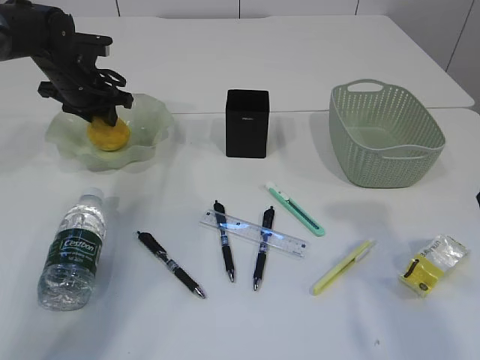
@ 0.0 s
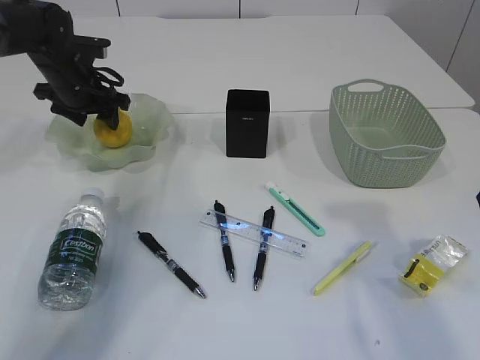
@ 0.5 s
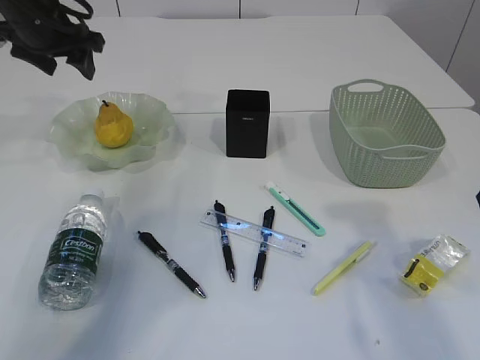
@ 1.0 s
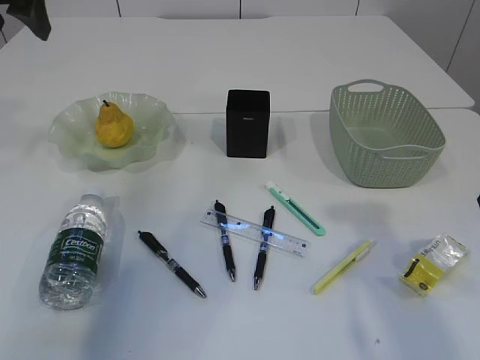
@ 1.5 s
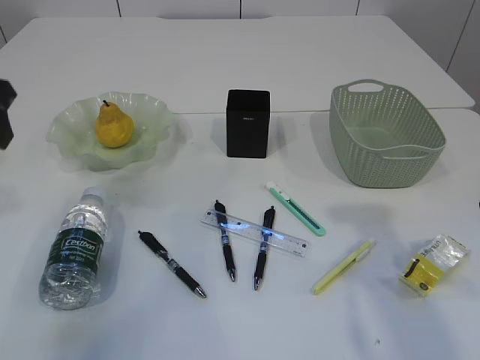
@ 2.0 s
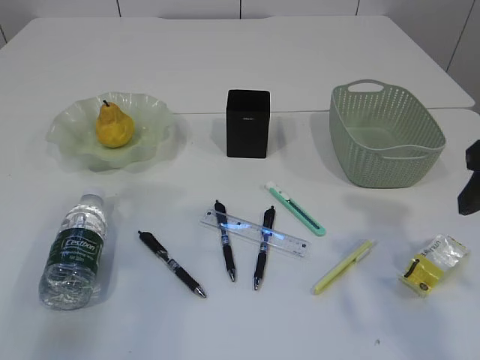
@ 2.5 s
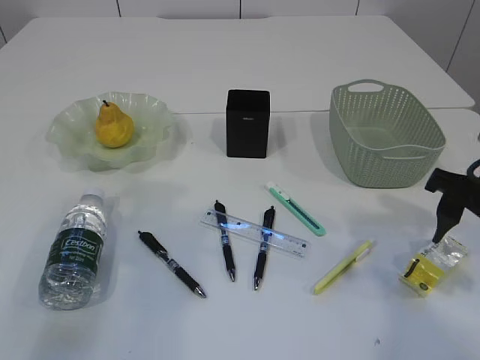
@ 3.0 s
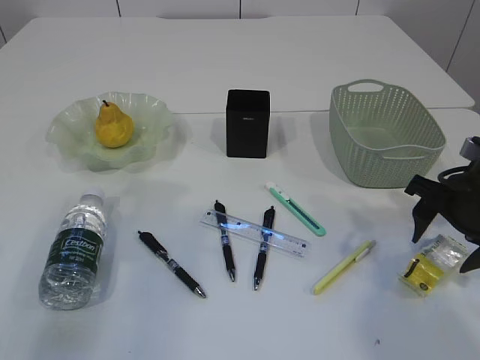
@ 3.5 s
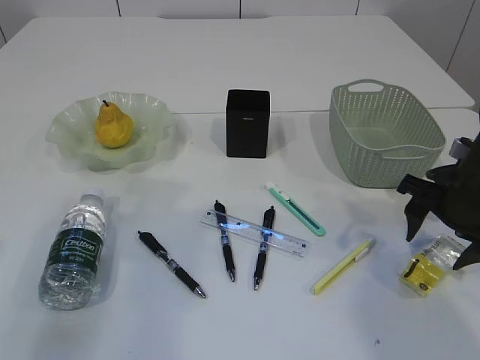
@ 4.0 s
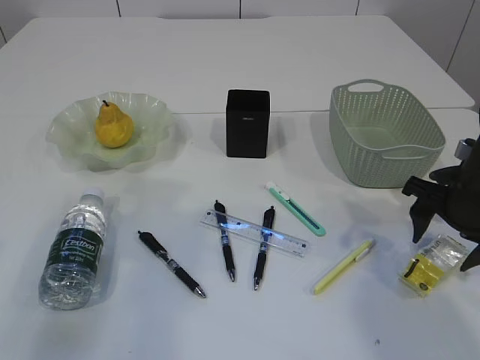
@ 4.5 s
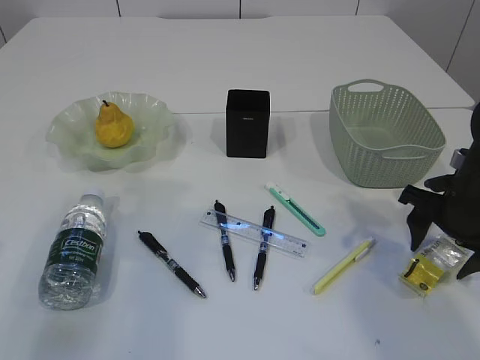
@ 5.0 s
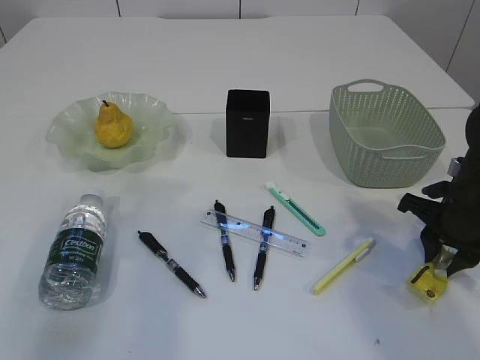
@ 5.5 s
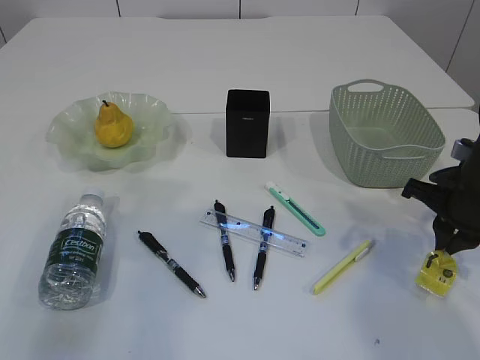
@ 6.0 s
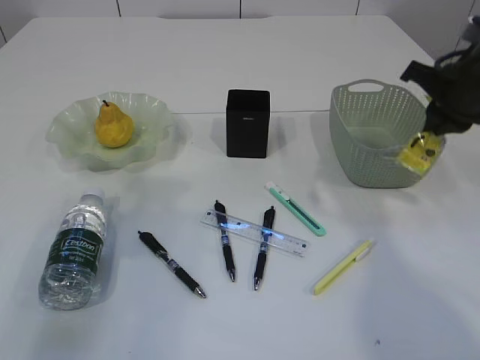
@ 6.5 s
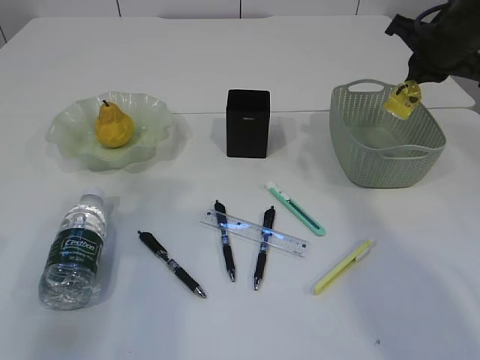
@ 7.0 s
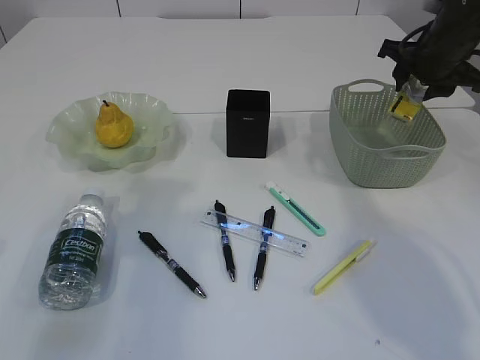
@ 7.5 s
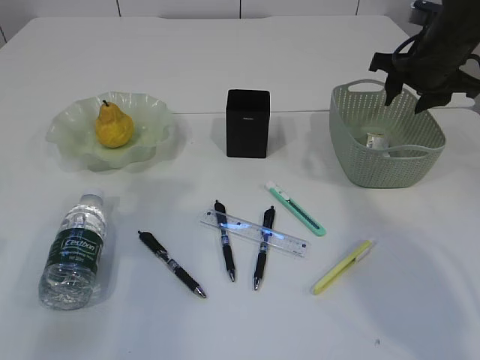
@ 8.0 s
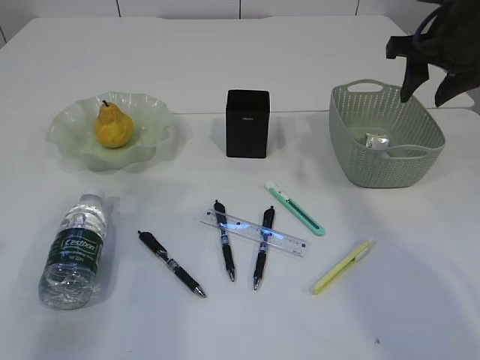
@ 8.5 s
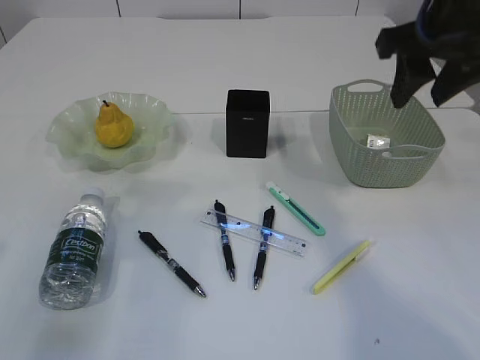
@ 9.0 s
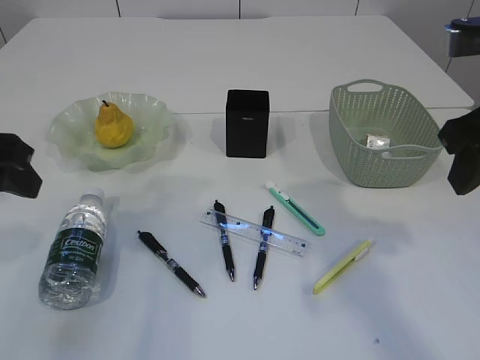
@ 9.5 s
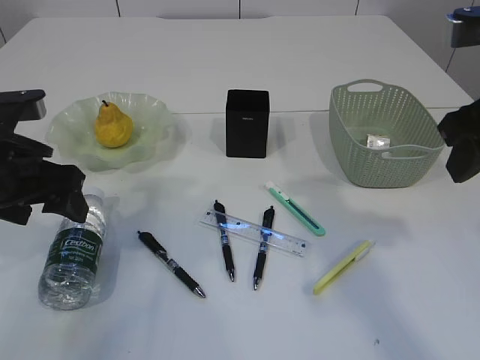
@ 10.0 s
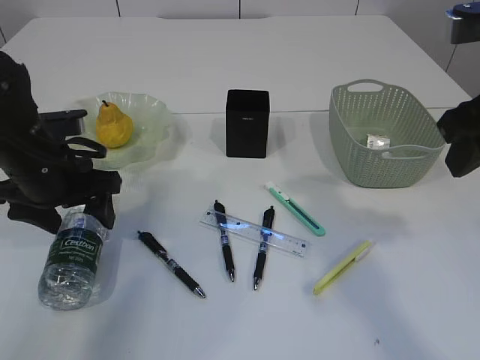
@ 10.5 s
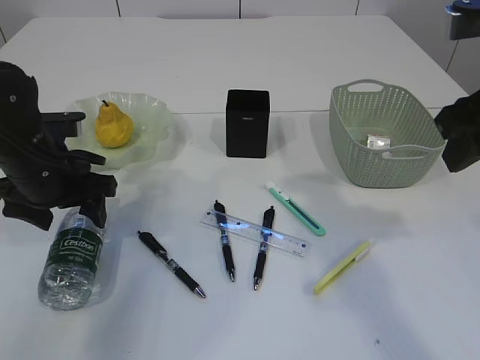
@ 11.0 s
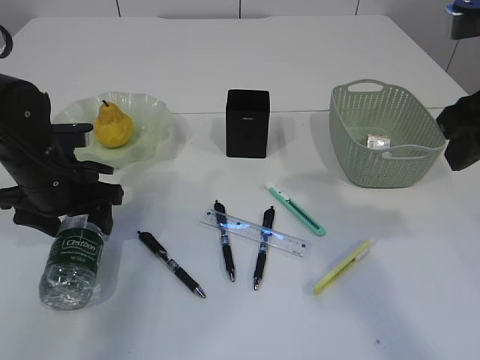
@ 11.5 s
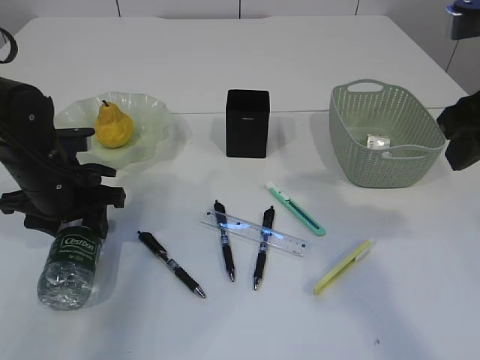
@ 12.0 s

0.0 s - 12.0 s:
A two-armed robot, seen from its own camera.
Step, 1.5 s - 6.0 s: Pick up the waste paper.
Step, 6.5 s - 7.5 s: Place the waste paper in the basket.
0.0 s - 2.0 s: The left gripper travels backward and upward by roughly 25 cm, and opens up.
2.0 s - 4.0 s: The right gripper travels downward and forward by some 20 cm, while the left gripper goes about 10 cm backward.
4.0 s - 6.0 s: The right gripper closes up.
6.0 s - 8.0 s: The right gripper moves forward and upward, about 15 cm, and opens up.
8.0 s - 10.0 s: The right gripper travels backward by some 20 cm. The left gripper heads downward, covering roughly 5 cm.
10.0 s - 12.0 s: The left gripper travels downward and forward by some 10 cm.

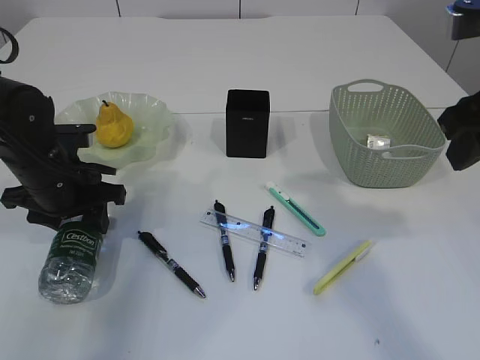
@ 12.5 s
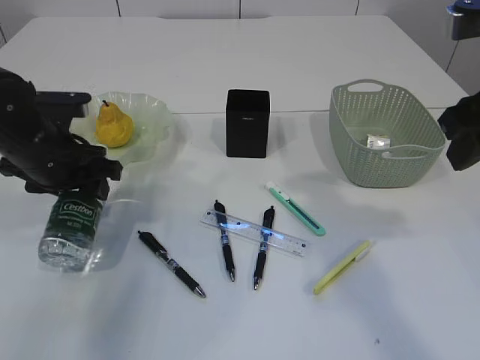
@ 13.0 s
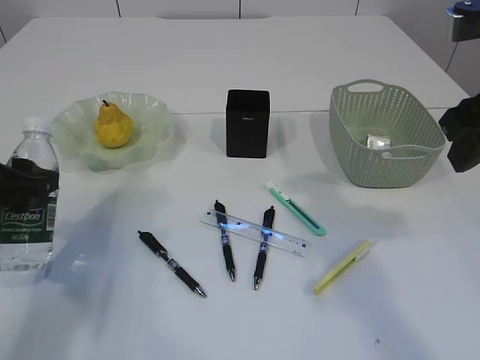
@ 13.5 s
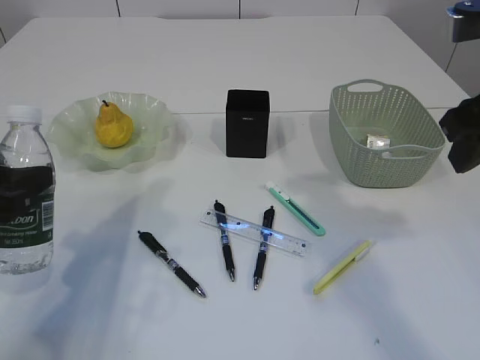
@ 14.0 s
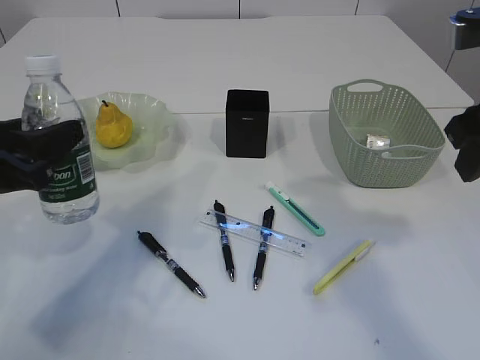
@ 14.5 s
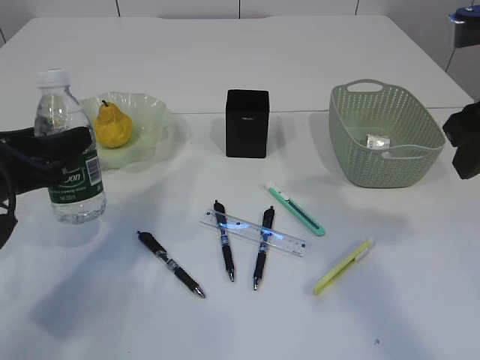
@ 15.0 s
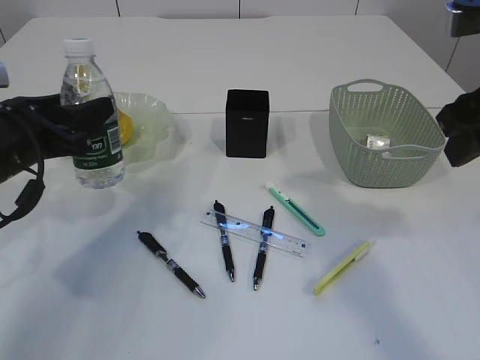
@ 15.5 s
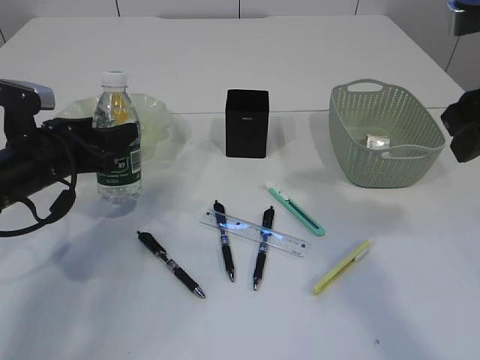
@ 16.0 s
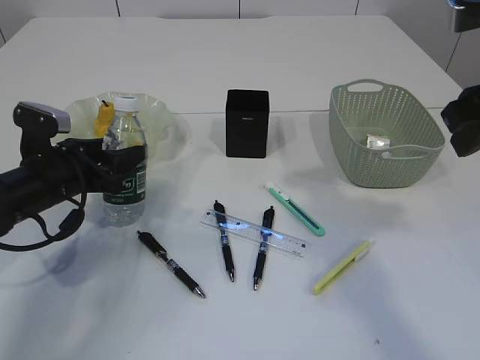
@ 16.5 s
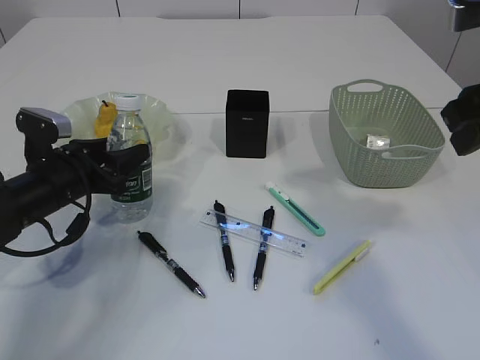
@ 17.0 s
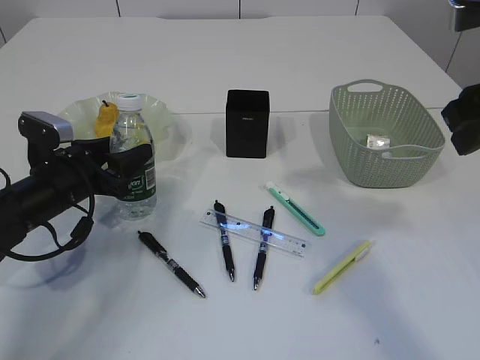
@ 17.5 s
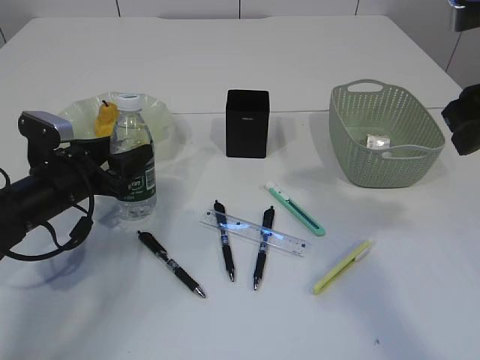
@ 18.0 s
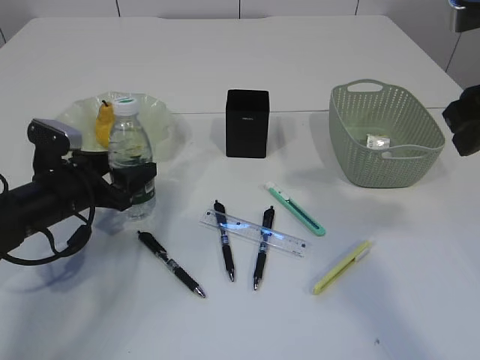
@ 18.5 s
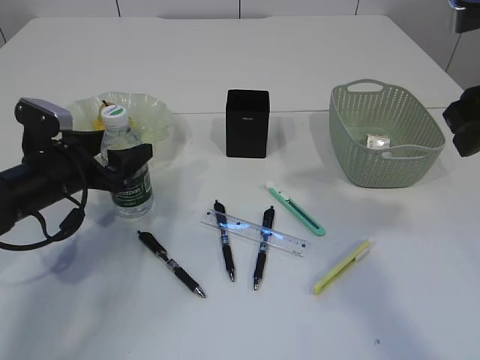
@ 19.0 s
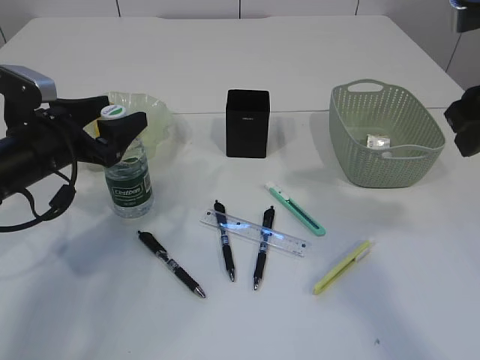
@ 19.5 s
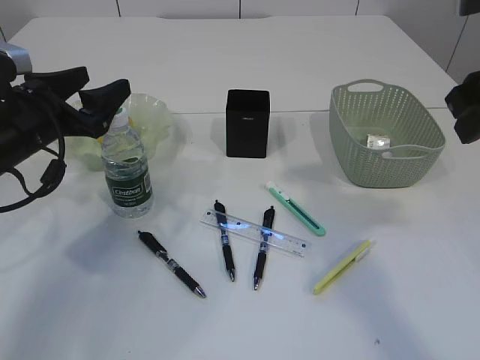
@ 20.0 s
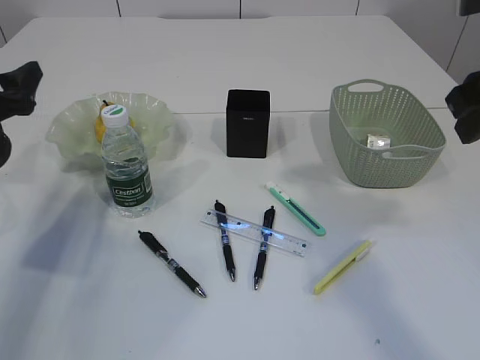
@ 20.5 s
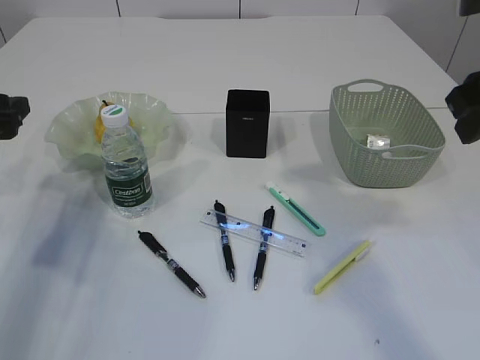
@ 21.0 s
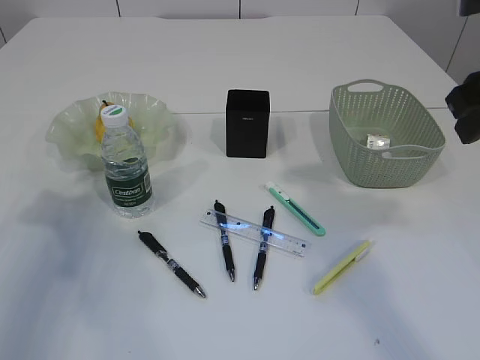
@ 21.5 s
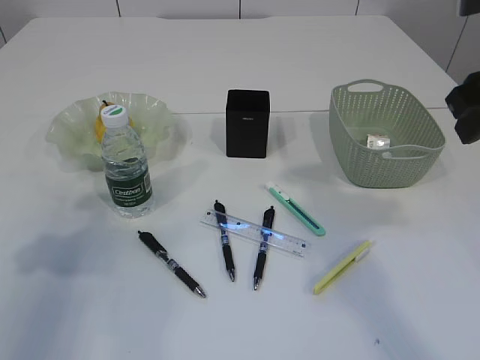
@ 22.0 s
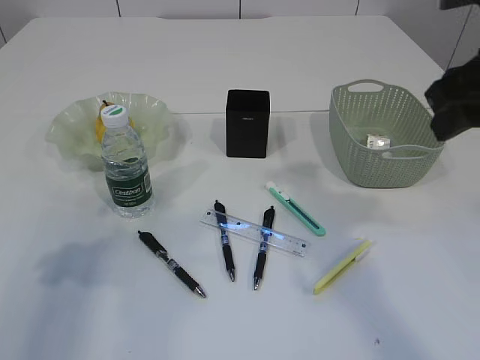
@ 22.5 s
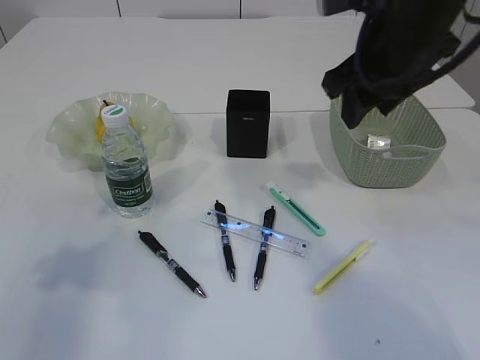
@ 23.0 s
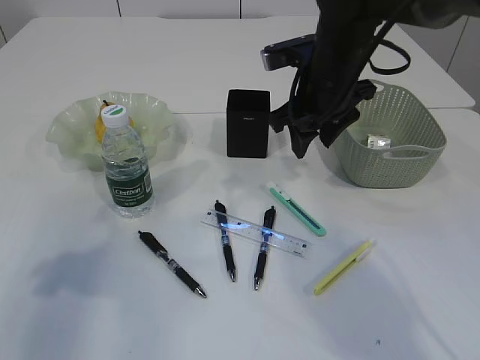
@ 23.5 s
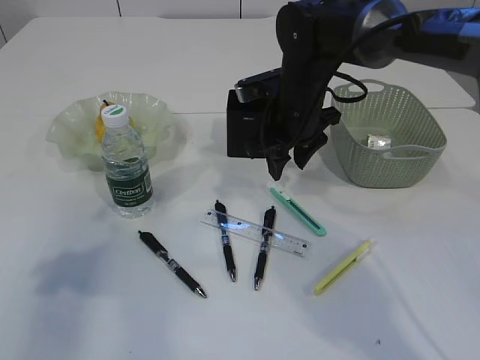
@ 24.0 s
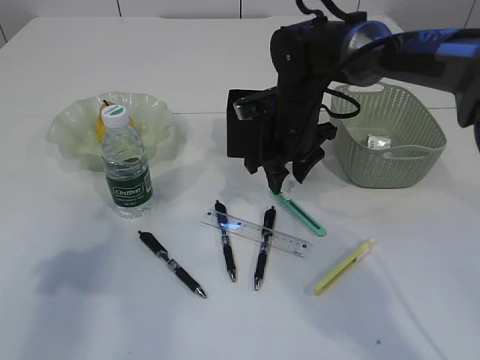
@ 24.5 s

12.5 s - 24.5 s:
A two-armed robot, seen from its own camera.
Step, 13.5 s - 20.5 s: Place the bottle.
12.5 s - 14.5 s: The left gripper travels backward and upward by some 10 cm.
14.5 s - 16.5 s: The left gripper moves forward and downward, about 15 cm.
16.5 s - 18.5 s: The grippers move only a little.
18.5 s - 20.5 s: The left gripper heads upward and to the left, covering approximately 15 cm.
20.5 s - 22.5 s: The left gripper shifts about 15 cm backward and upward.
22.5 s - 24.5 s: The right gripper shifts roughly 30 cm forward, downward and to the left.

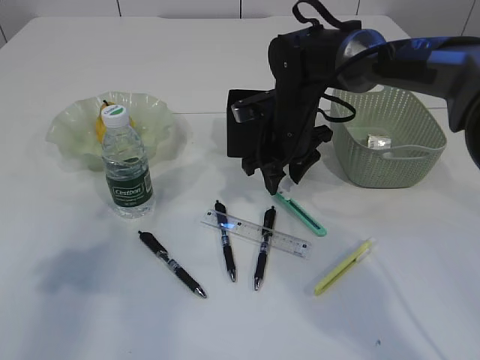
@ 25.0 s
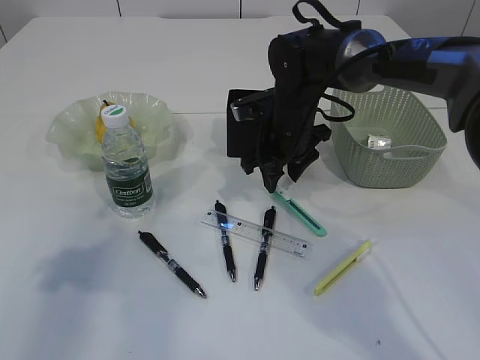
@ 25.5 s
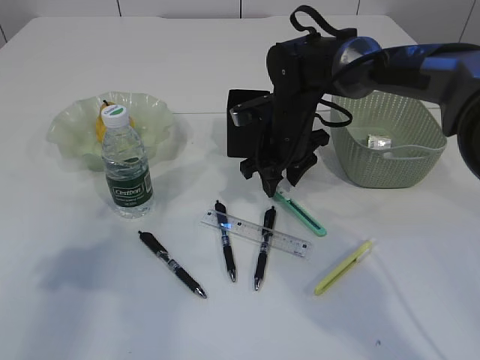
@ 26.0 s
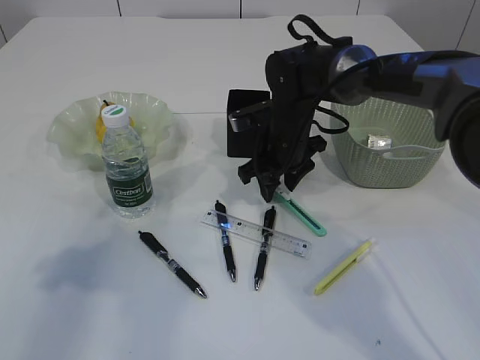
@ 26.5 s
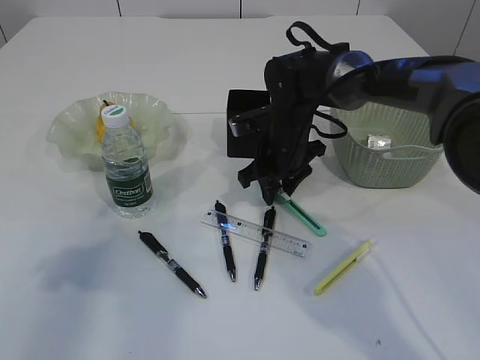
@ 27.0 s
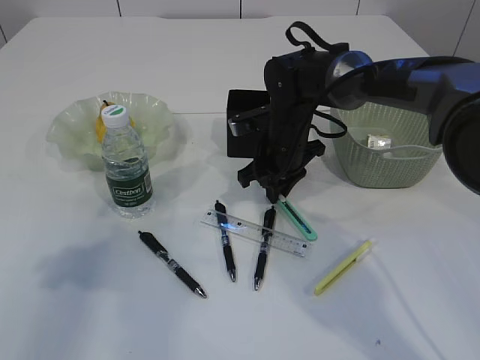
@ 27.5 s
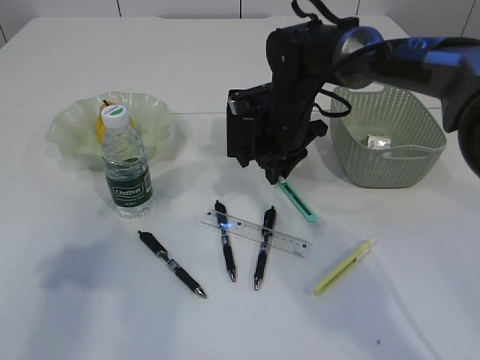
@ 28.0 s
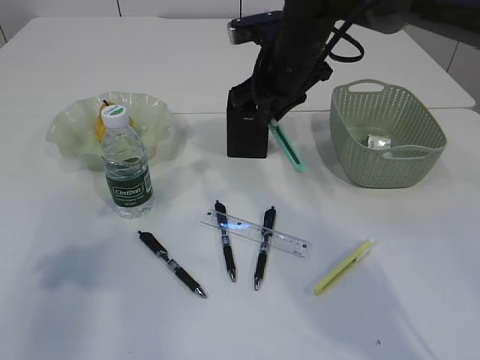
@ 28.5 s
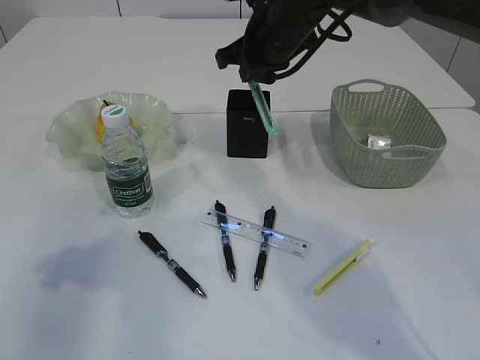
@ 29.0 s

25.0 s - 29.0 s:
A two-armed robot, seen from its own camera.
Step, 25.0 s - 28.5 s: pick up the blue knife.
25.0 s - 27.0 s: The grippers move only a little.
27.0 s - 29.0 s: The right gripper goes approximately 15 cm upward, and closes.
